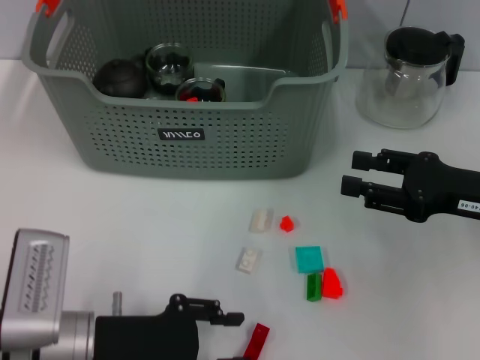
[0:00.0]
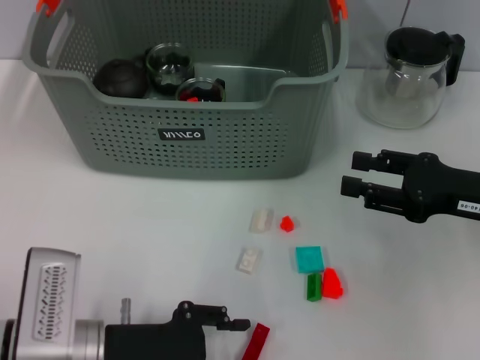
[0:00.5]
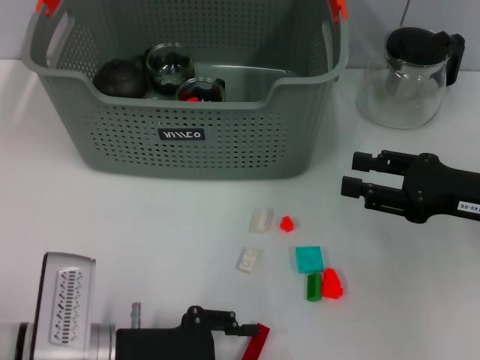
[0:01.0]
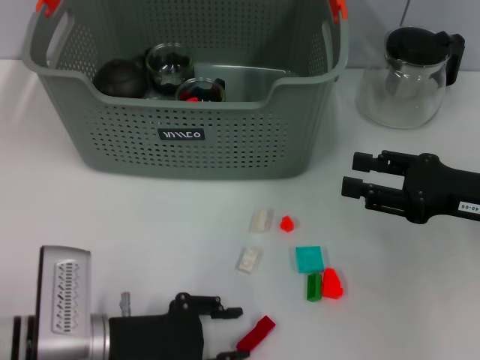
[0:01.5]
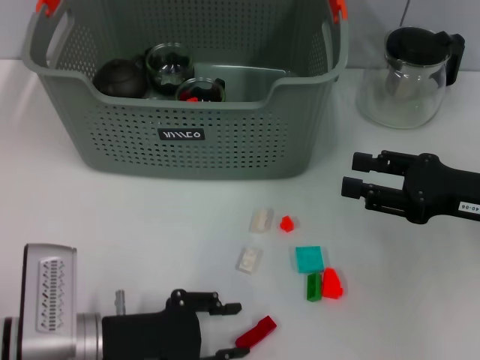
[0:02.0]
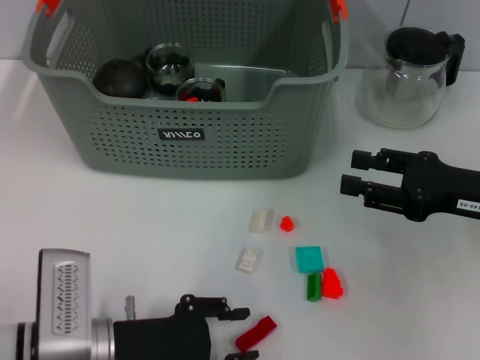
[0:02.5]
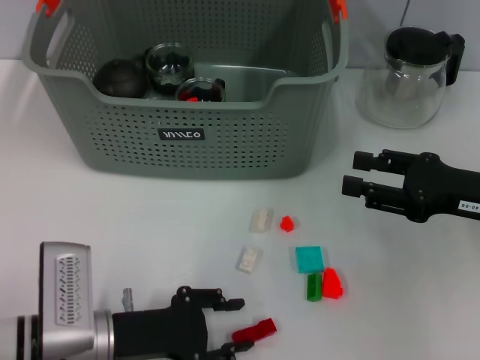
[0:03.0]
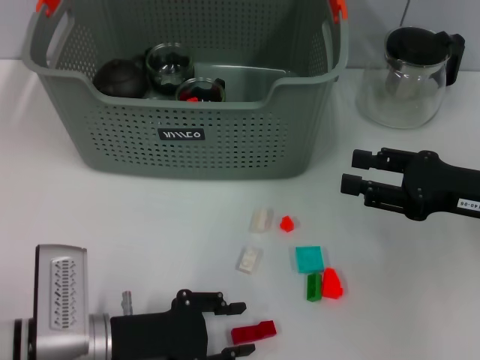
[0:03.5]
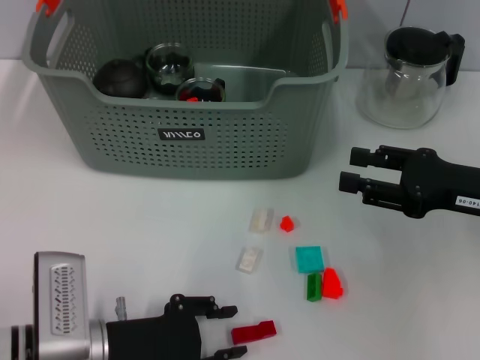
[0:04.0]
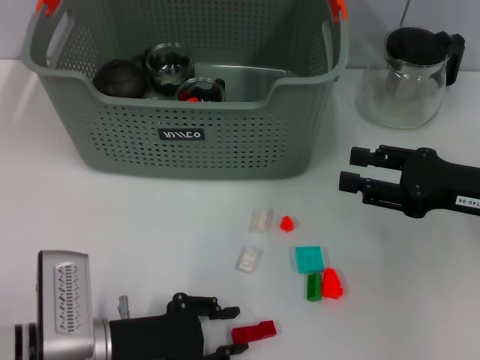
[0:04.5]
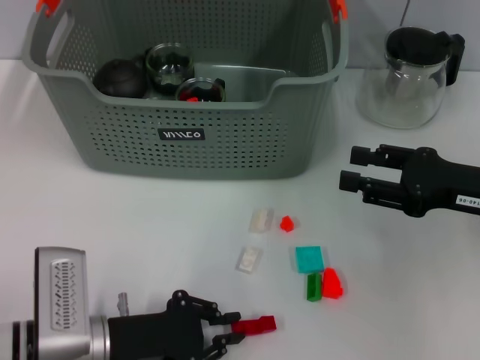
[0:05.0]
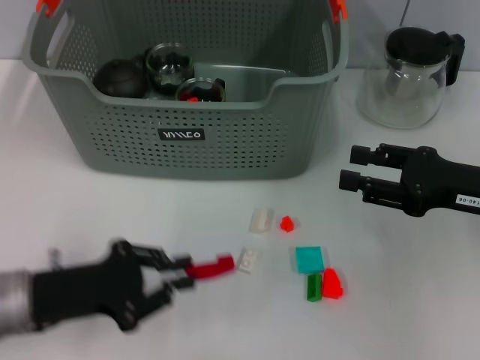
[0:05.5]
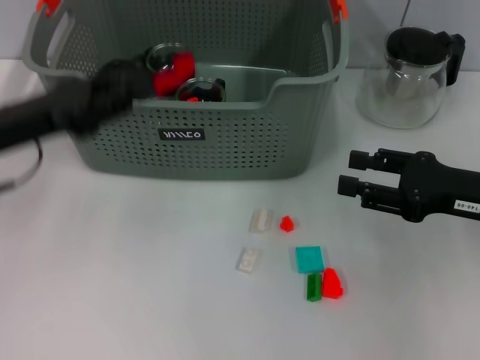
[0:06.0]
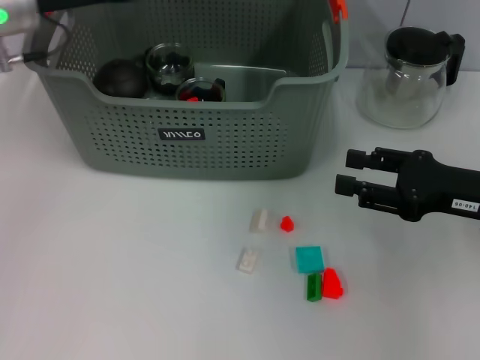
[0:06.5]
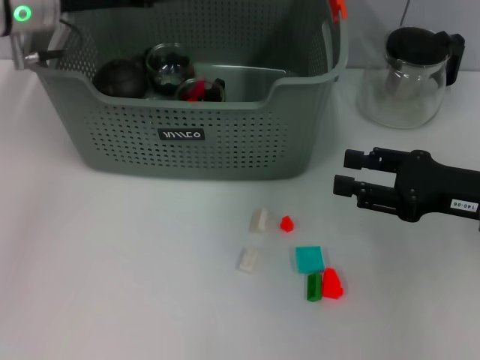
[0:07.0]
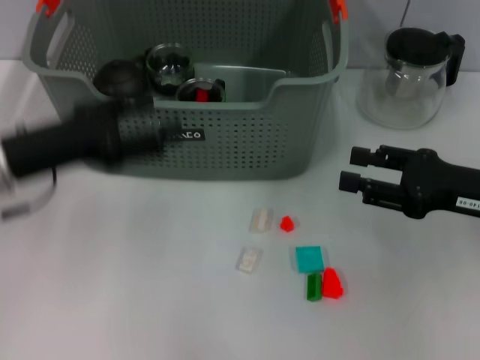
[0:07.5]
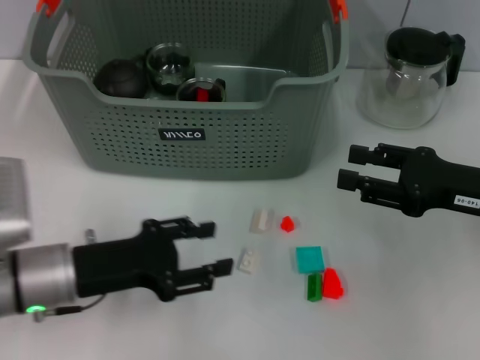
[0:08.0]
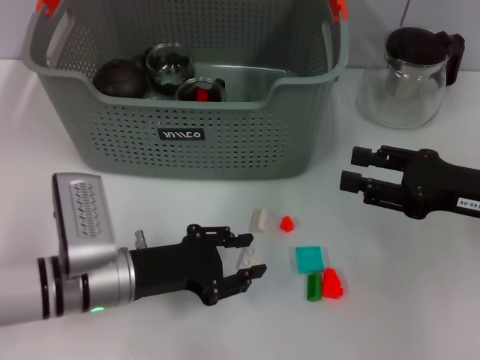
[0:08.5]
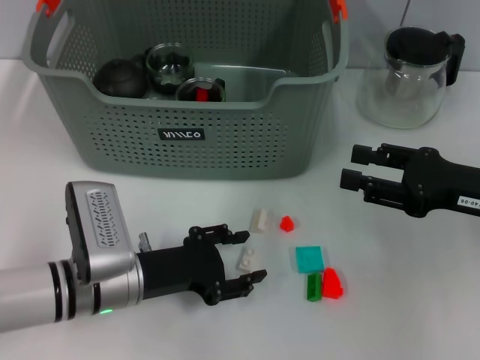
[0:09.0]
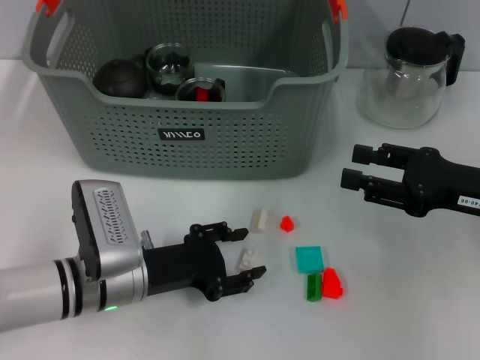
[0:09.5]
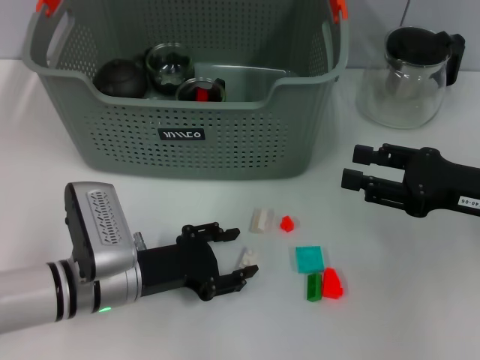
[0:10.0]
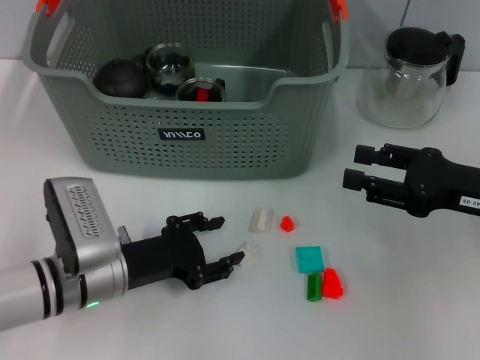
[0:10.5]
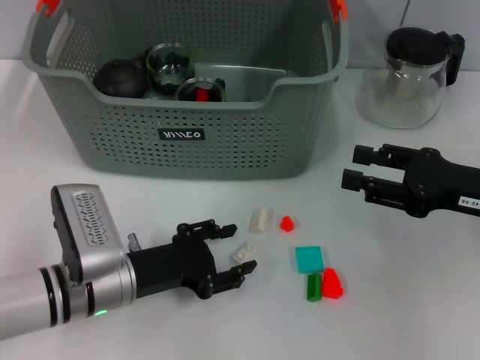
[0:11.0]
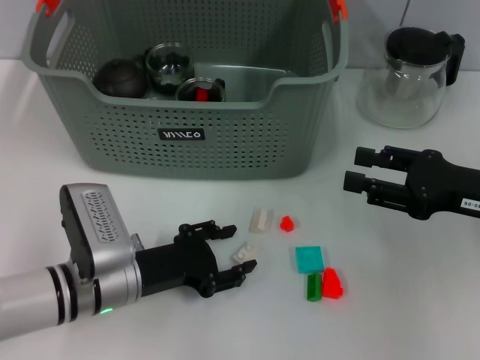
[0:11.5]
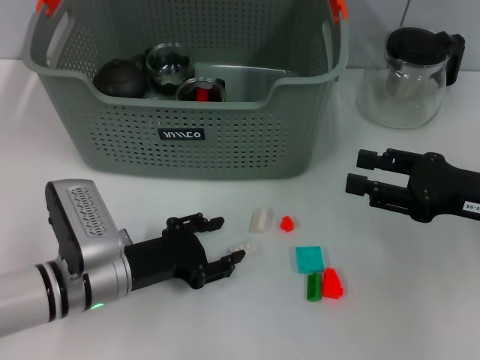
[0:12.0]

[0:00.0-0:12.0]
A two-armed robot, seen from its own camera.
Task of the whole recording: pick up the teacup on the table and place it into the storage bin, pick up the block on the table and place it into the storage bin.
Step, 0:00.0 to 0:04.5: Grasp the red block with left gripper.
Step, 0:05.5 to 0:07.0: Place the red block in the storage box with left gripper.
0:00.0 to 0:04.0: The grippers make only small movements.
0:04.0 to 0:06.0: The left gripper shifts approximately 20 cm upward, forward and to the left, and closes up.
0:06.0 to 0:08.0: The left gripper travels downward and to the right by about 10 cm, goes forward and returns, some 10 cm each way, and opens its fingers.
0:08.0 to 0:10.0: The left gripper moves roughly 5 cm.
0:10.0 to 0:12.0: The grippers stay close to where they were, moving slightly.

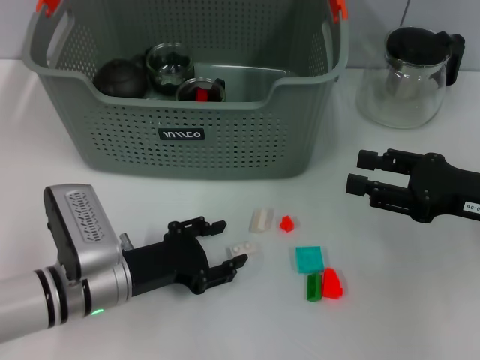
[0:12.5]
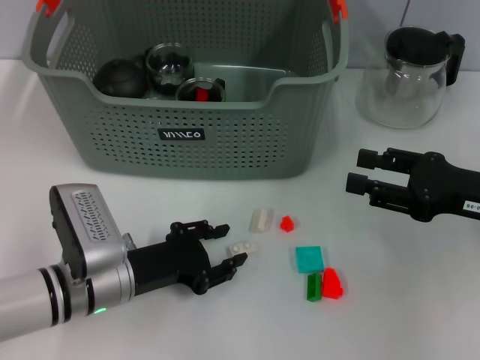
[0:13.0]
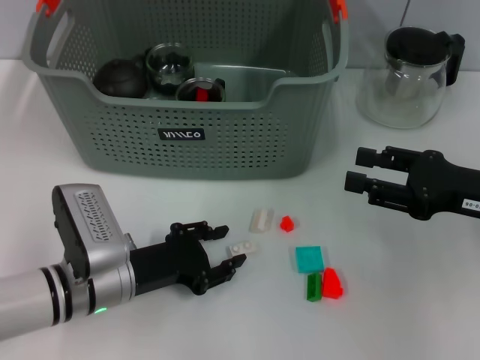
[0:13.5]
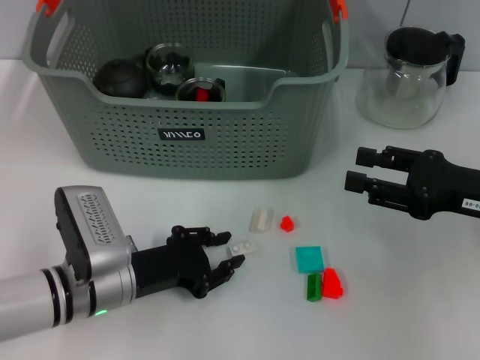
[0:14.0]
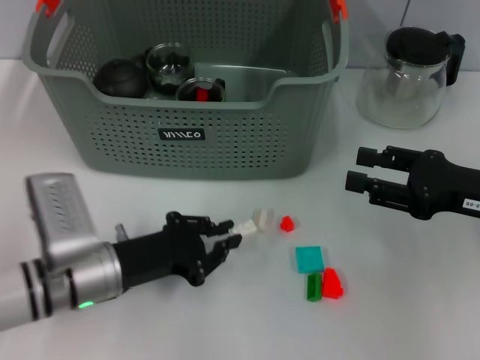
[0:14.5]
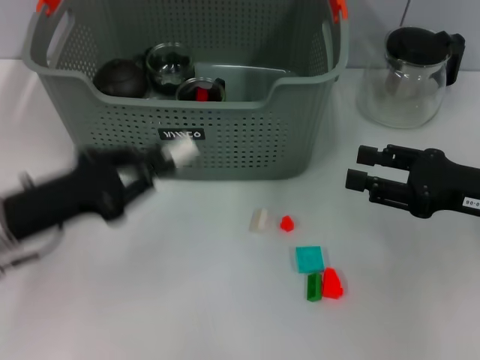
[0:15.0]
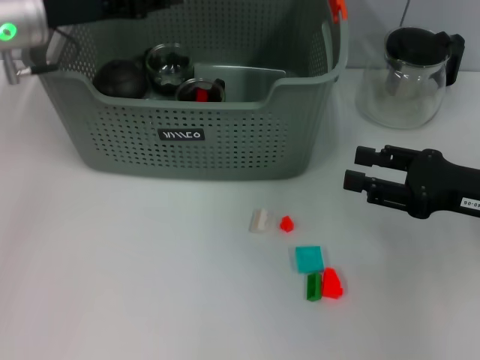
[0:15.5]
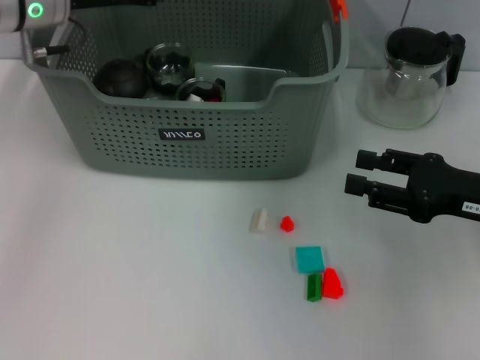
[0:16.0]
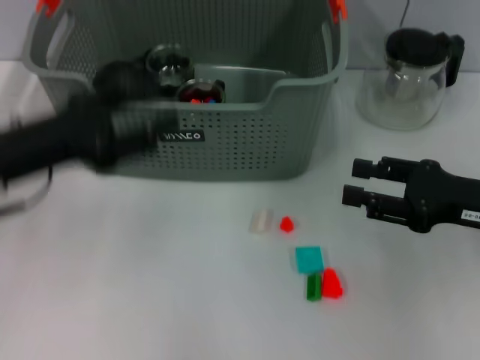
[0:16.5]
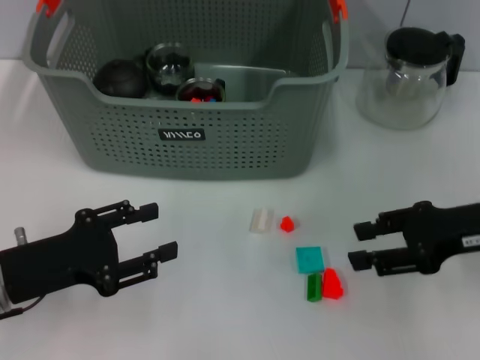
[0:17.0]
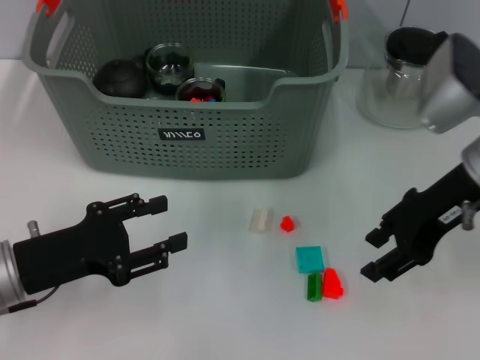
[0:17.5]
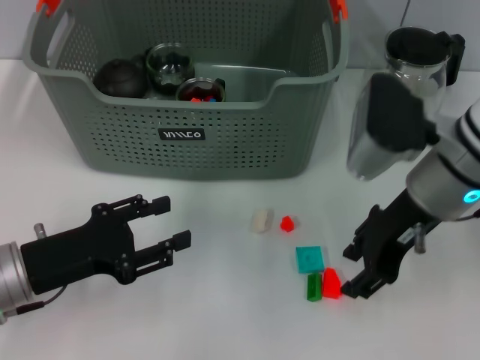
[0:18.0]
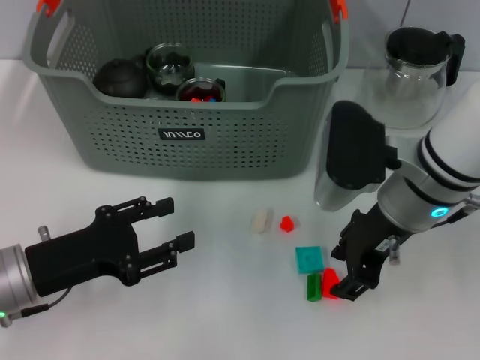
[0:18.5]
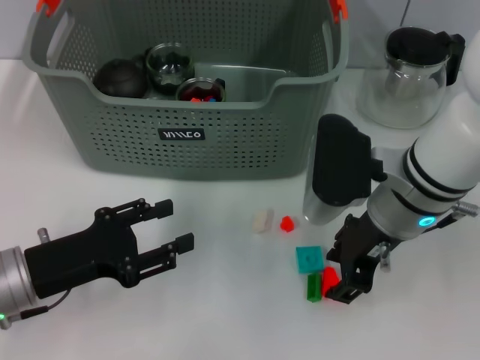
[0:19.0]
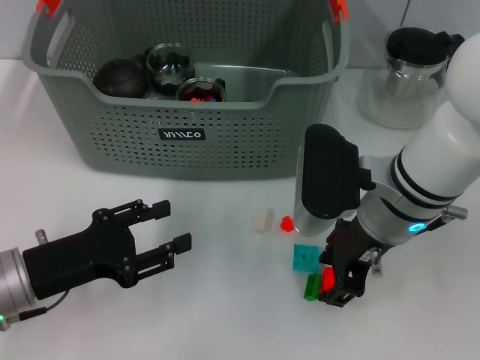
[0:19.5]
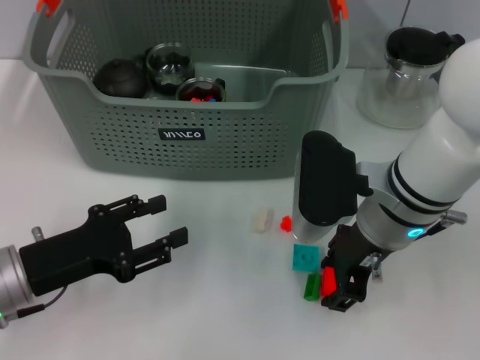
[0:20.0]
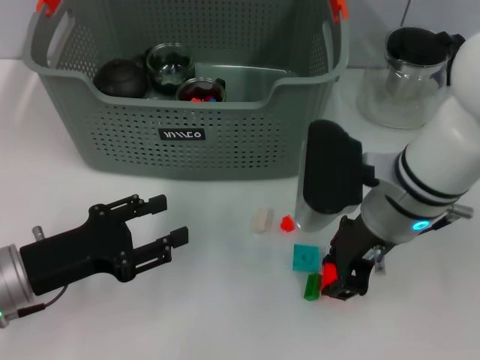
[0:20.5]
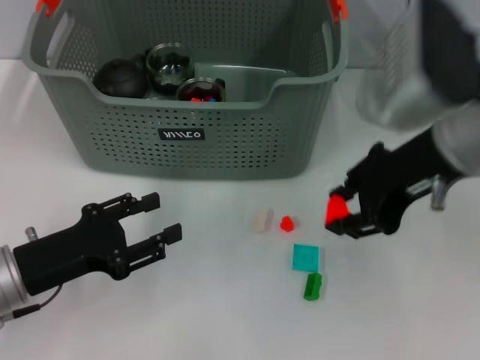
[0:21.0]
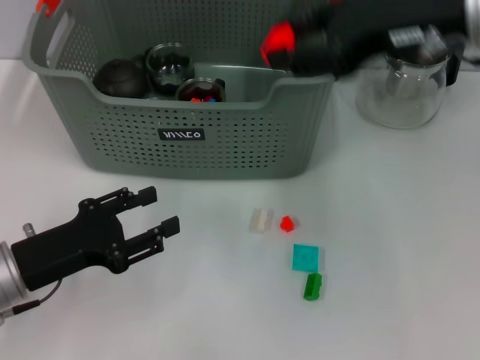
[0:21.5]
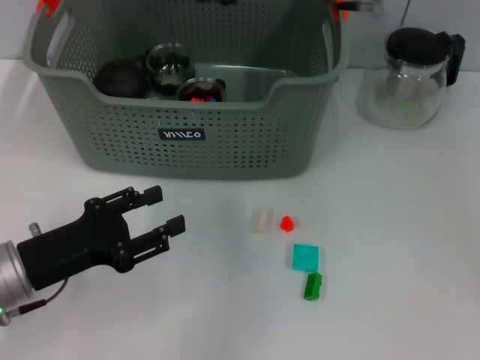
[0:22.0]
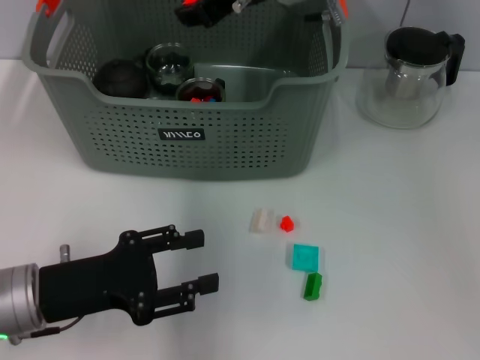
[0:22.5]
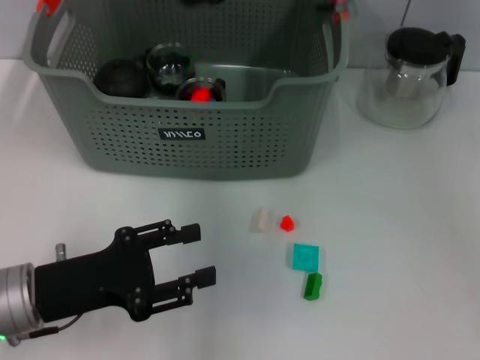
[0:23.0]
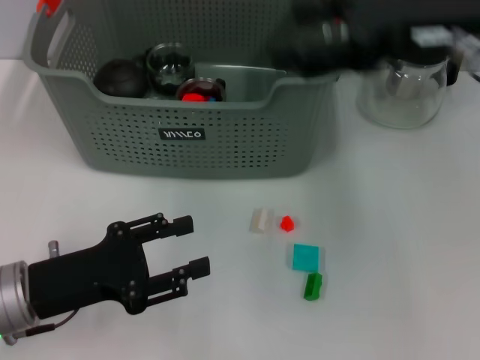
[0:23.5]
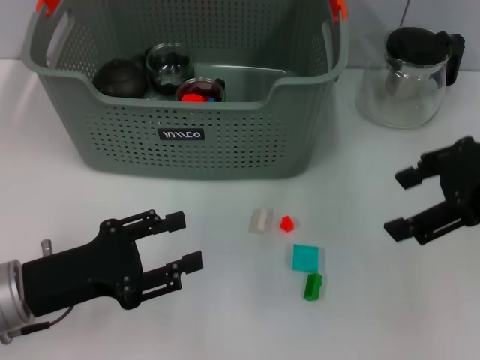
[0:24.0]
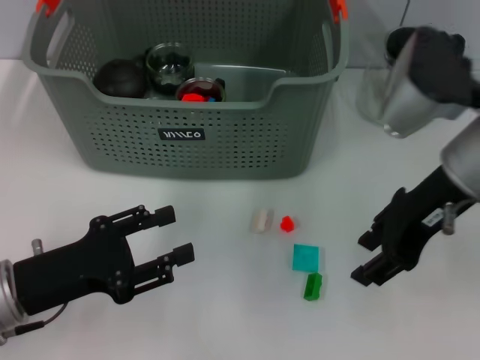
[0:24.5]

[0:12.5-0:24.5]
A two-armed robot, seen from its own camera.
Task of the whole recording: pick up the teacup on the table and place it into the storage bin, pick up the block on the table and place it into the storage bin.
Step, 0:14.5 to 0:16.0: Place the white block in the storage box with left gripper.
Step, 0:16.5 to 0:20.0: Grasp the orange block with right gripper.
Step, 0:20.5 to 0:22.5: Place the orange block in the storage box with right gripper.
0:12.5 to 0:14.5: The left gripper closes up.
0:14.5 to 0:16.5: The left gripper goes roughly 15 cm upward and to the left, and opens its fingers.
0:16.5 to 0:18.5: The left gripper is displaced downward and backward by approximately 10 cm. The right gripper moves to the left, approximately 15 cm.
0:18.5 to 0:20.5: The grippers stay close to where they were, moving slightly.
0:20.5 to 0:22.5: The right gripper travels forward, upward and to the left by approximately 20 cm.
0:22.5 to 0:24.5: The right gripper shifts about 20 cm to the right and backward, and opens and closes again.

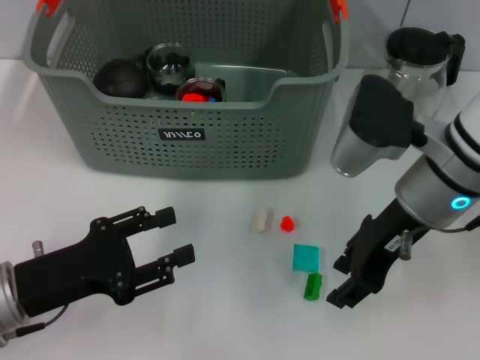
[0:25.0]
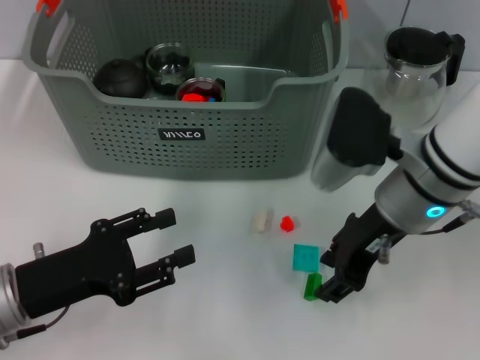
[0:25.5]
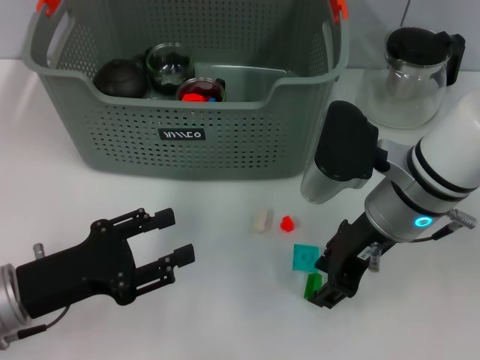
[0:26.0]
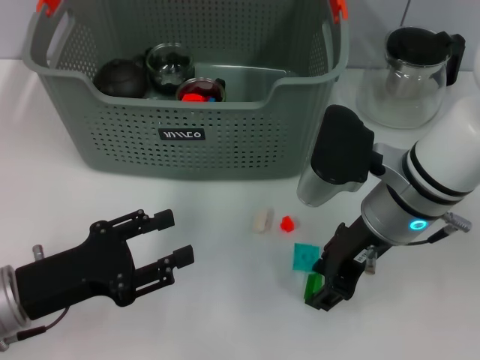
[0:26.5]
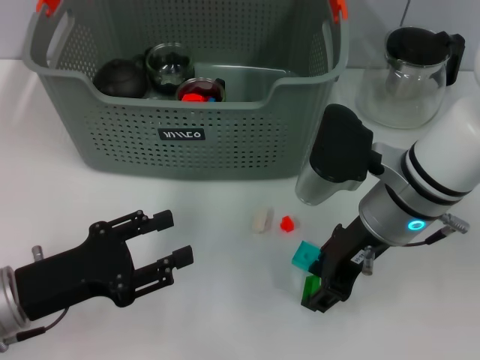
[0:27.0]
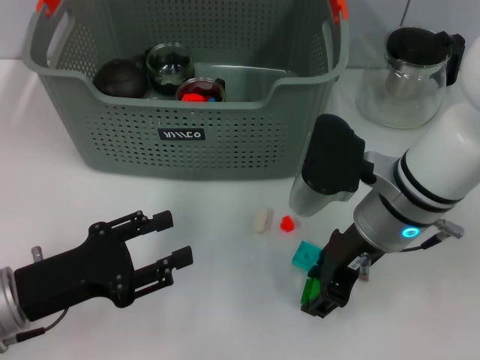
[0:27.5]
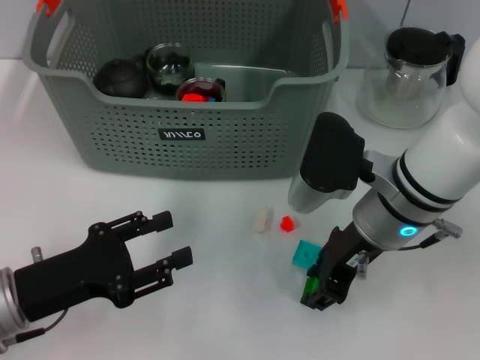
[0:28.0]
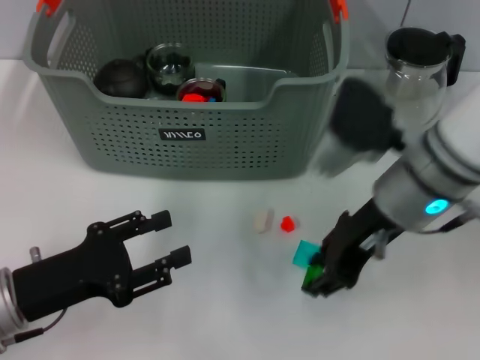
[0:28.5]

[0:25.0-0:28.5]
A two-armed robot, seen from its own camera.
Task of the whole recording: pick up the teacup on the table and place it into the storage bin, pick up the block on the table and place it into the storage bin.
Step, 0:25.0 to 0:28.0: Grasp the green block with right gripper.
0:25.0 to 0:28.5: The grippers make only small movements.
